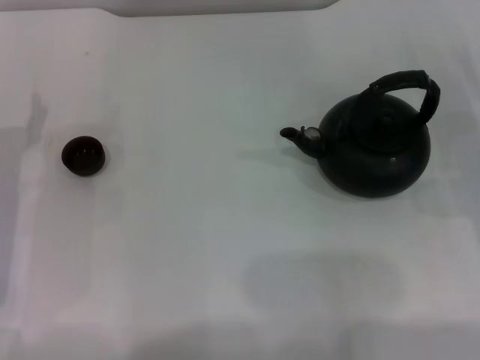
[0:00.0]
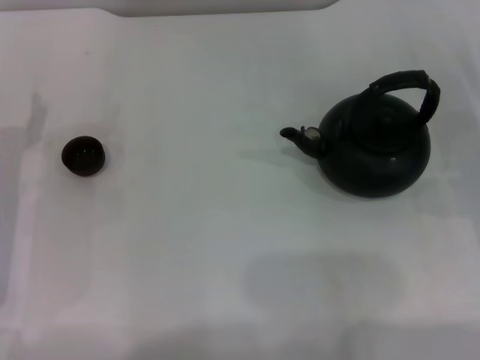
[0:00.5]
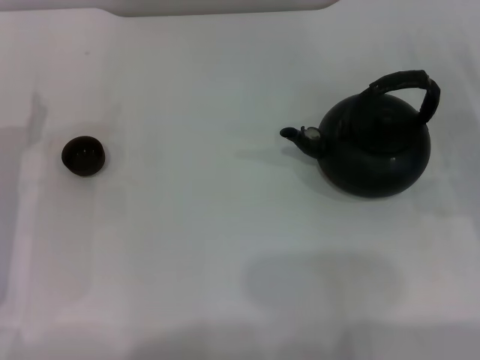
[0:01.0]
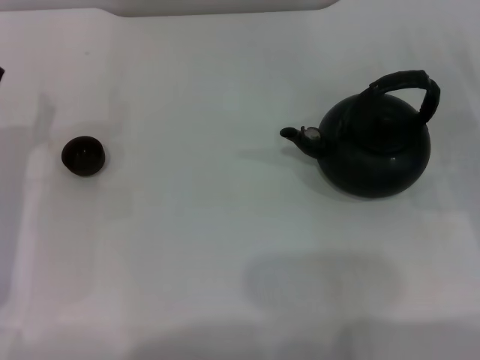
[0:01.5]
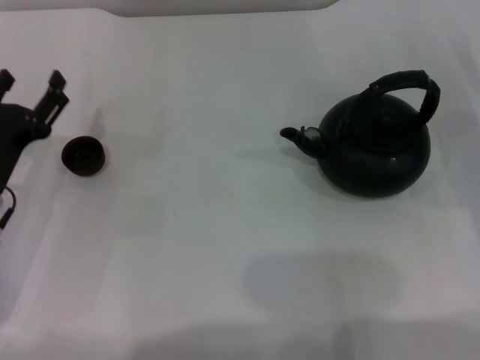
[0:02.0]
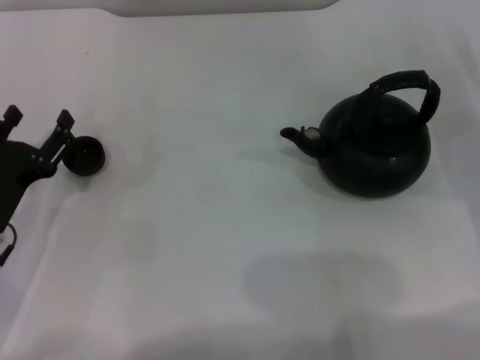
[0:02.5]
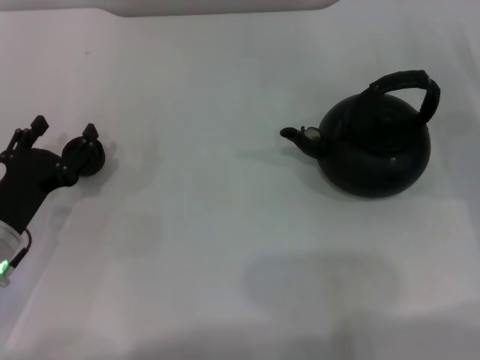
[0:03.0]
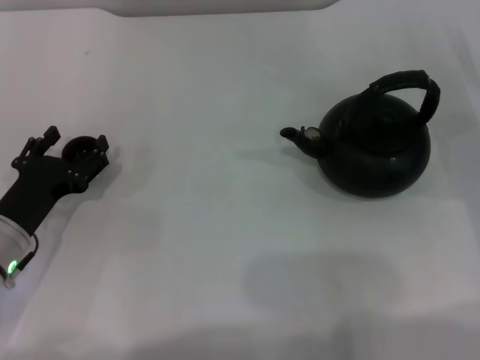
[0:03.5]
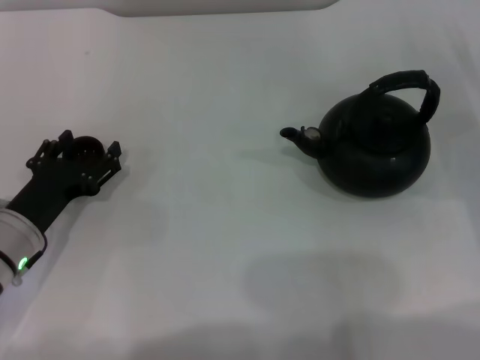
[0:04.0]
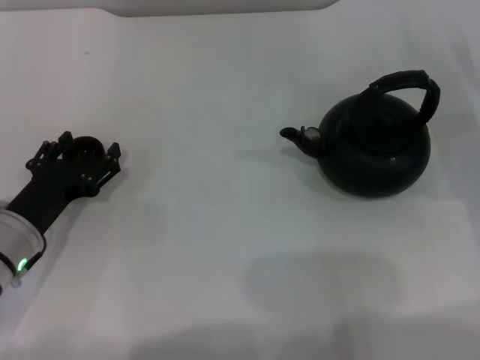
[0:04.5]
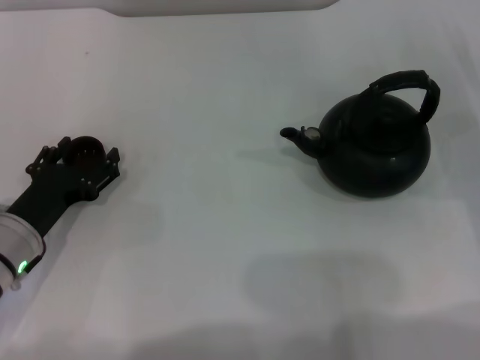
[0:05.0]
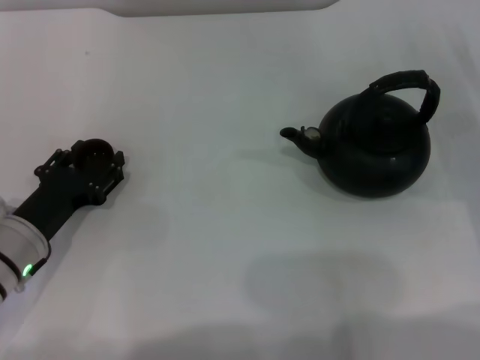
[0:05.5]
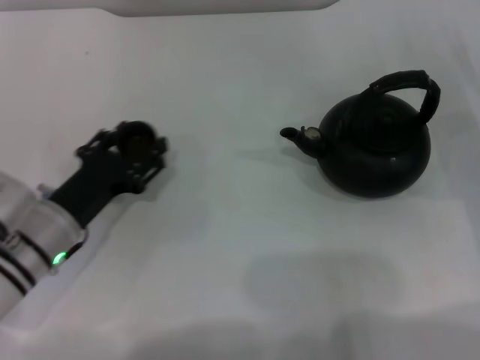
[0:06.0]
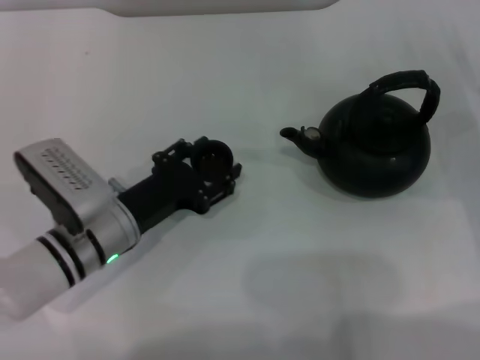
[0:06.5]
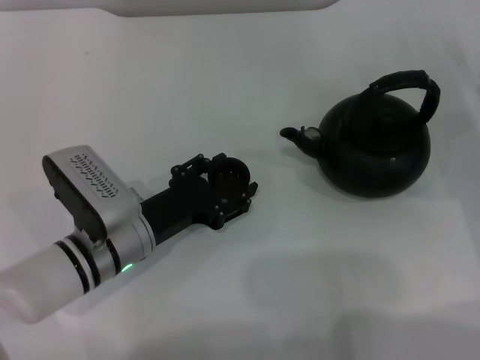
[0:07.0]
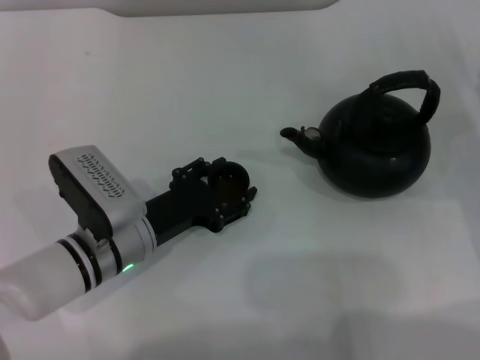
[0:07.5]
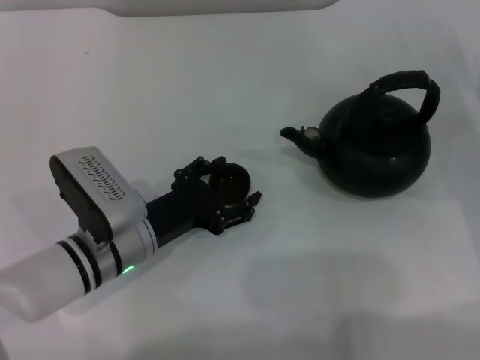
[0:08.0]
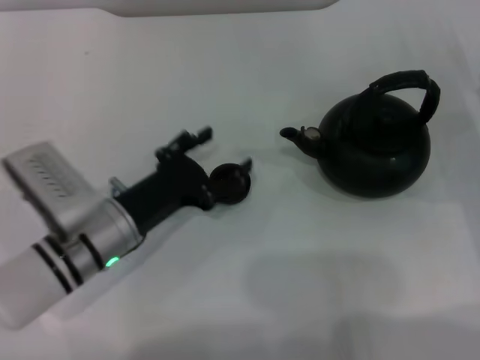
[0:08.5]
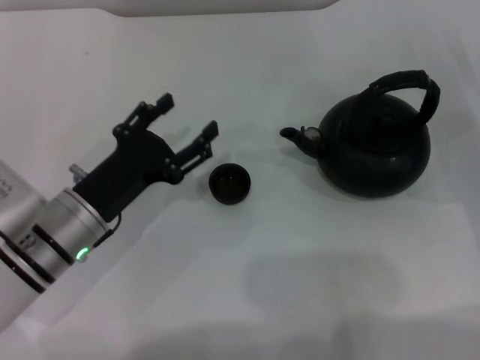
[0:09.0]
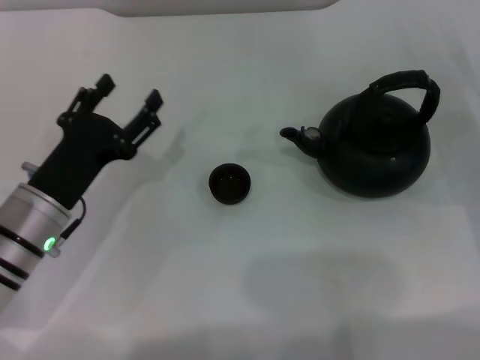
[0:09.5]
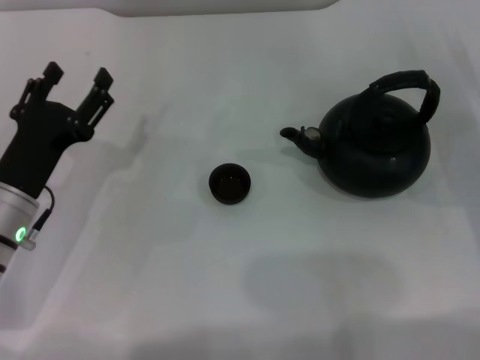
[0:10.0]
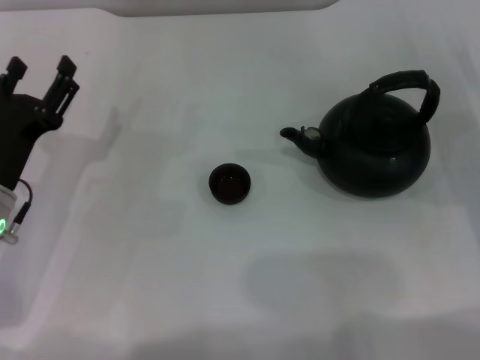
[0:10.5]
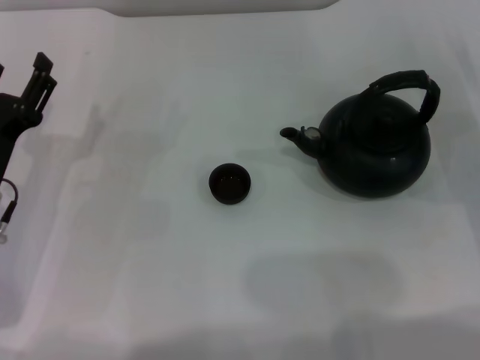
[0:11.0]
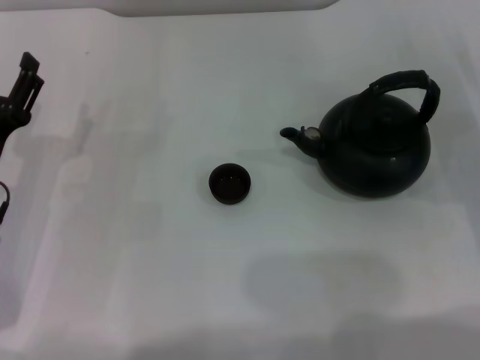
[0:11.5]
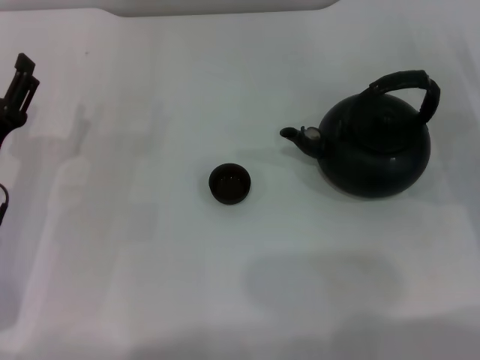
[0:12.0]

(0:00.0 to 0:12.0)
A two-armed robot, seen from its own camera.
Task of the whole recording: Grasp the handle of the teapot with one hand and pour tea into the teacup.
Step, 0:00.0 - 0:05.5: Pick up the teacup with the left gripper.
Step, 0:06.0 - 0:09.5: Place the teacup in the center of view with the left gripper.
0:02.0 - 0:04.0: There are only small adjustments of the grippers.
0:04.0 - 0:06.0: The left gripper closes.
0:06.0 - 0:08.0: The left gripper heads to the right, covering approximately 5 cm.
0:08.0 - 0:10.0: The left gripper moves to the left, roughly 10 cm, and opens its fingers.
0:10.0 - 0:12.0: The grippers move only a little.

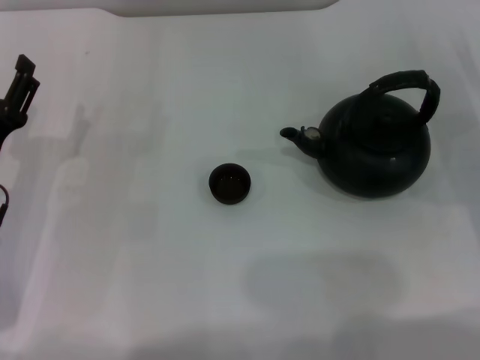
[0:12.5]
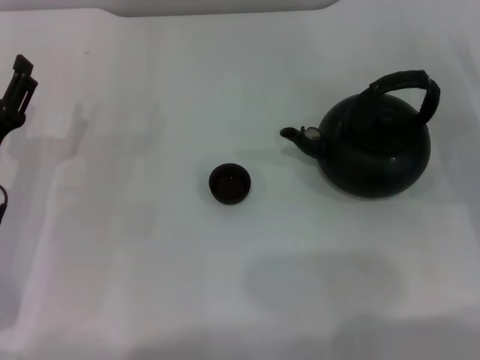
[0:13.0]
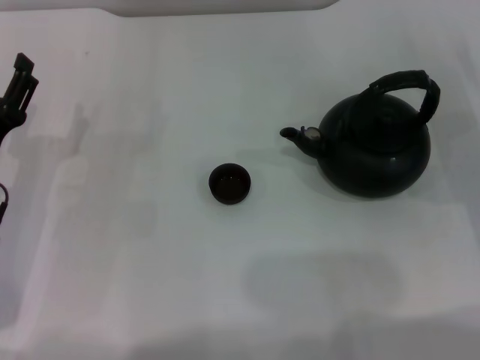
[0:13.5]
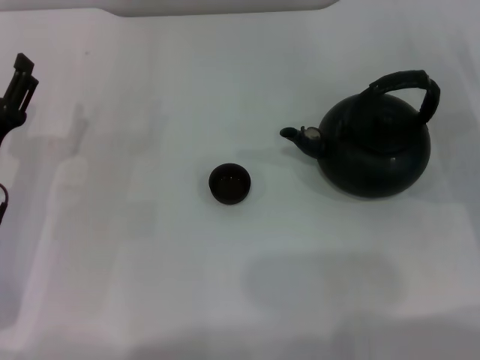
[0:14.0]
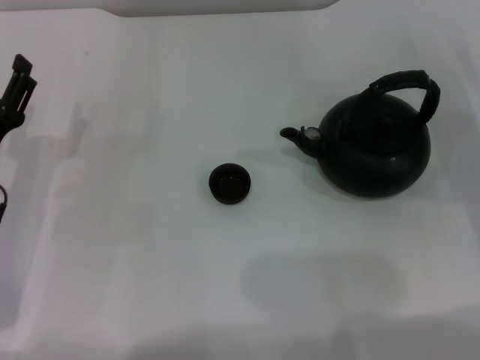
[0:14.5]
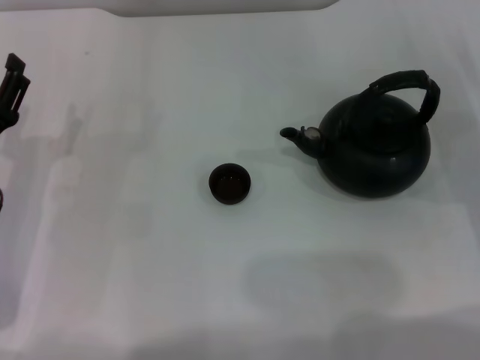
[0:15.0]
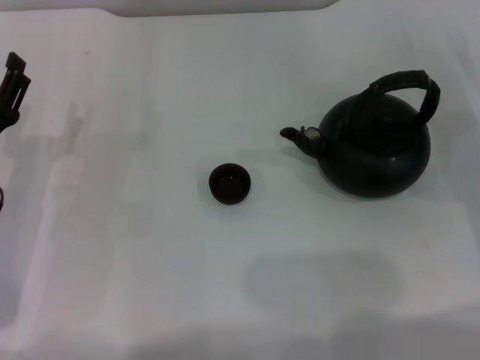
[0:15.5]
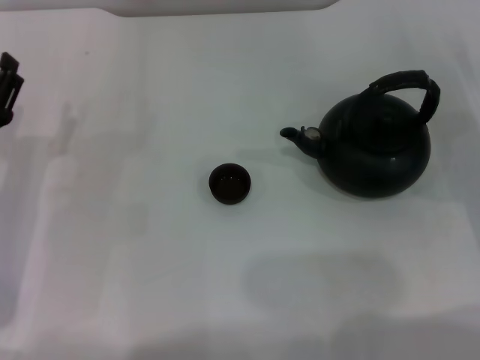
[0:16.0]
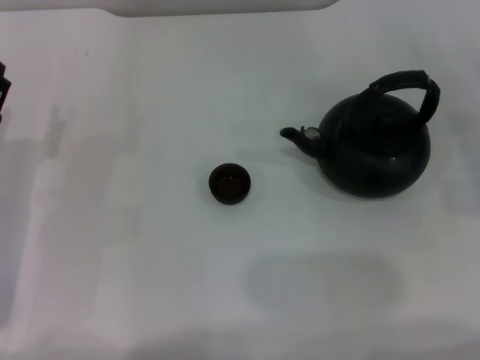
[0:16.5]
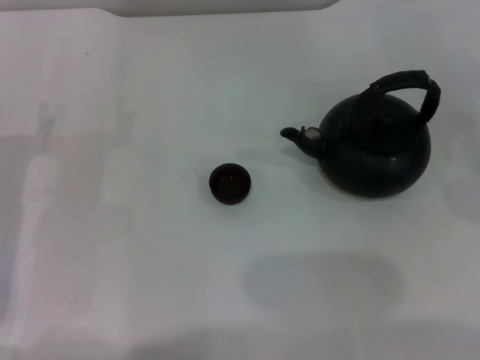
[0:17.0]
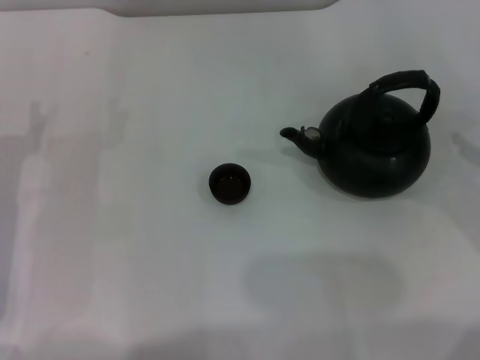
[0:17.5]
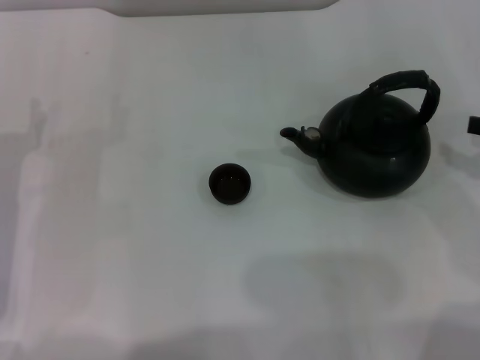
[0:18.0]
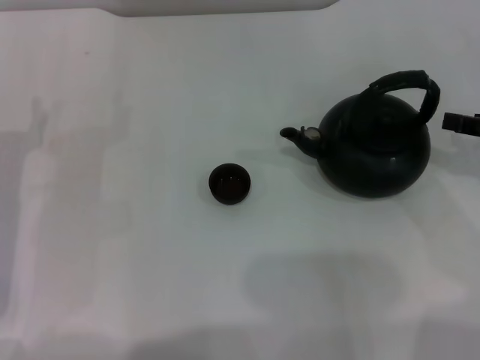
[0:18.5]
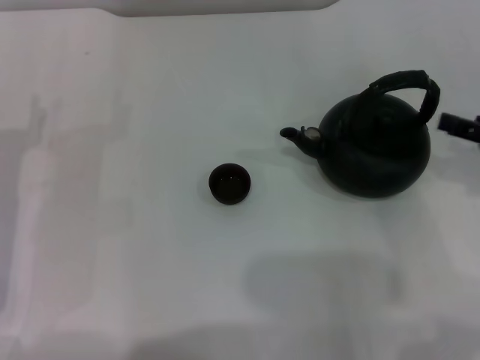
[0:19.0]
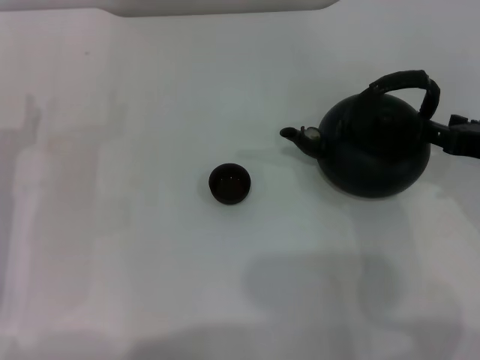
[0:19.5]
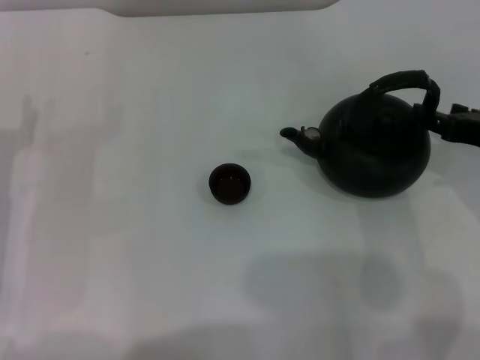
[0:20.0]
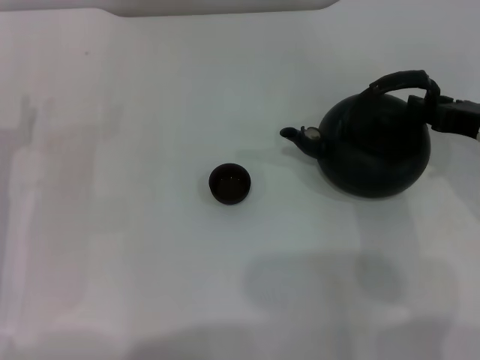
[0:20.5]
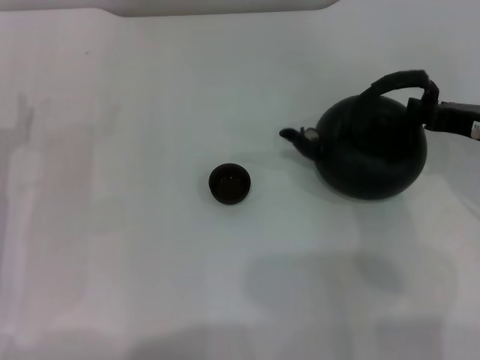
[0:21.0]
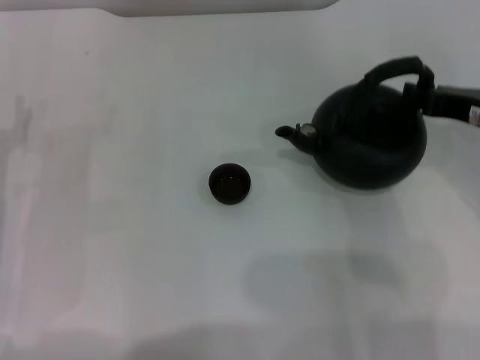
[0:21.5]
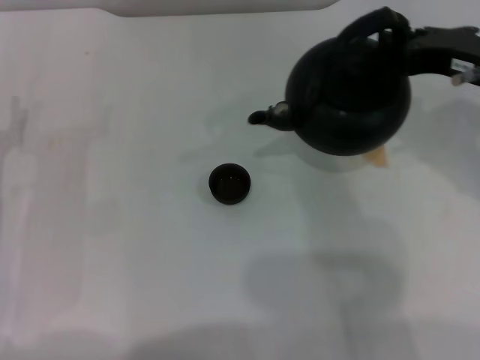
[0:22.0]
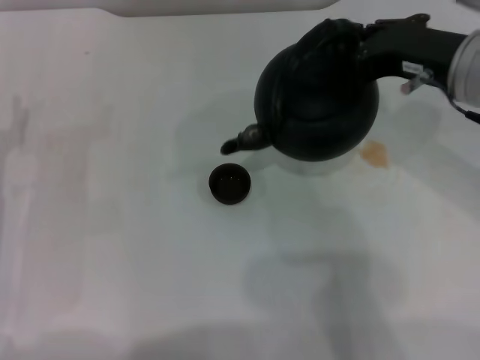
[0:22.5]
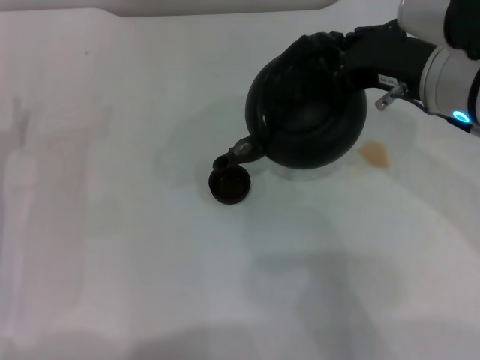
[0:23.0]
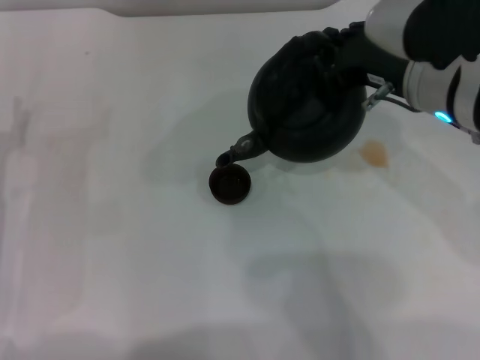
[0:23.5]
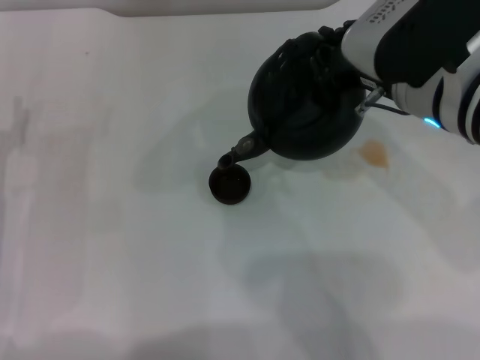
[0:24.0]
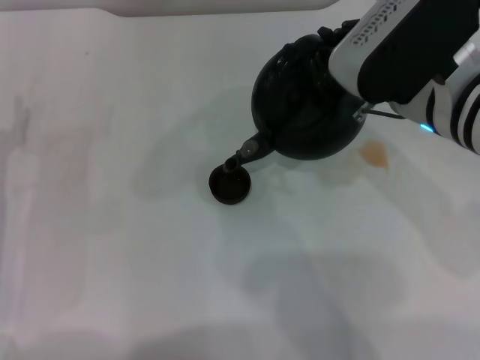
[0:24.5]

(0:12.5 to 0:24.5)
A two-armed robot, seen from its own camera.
Task of the whole recording: Grasp the handle of the teapot with one hand and pour tea into the teacup.
Step, 0:12.5 - 0:21.5: Pick up the teapot with the right gripper.
0:12.5 - 0:14.5: Both grippers stay put.
0:14.5 - 0:16.5: The grippers move only a little.
0:18.5 - 0:20.5: The right gripper shifts roughly 5 cm to the left.
0:20.5 - 0:22.5: The right gripper goes roughly 10 cm to the left and upward, and closes.

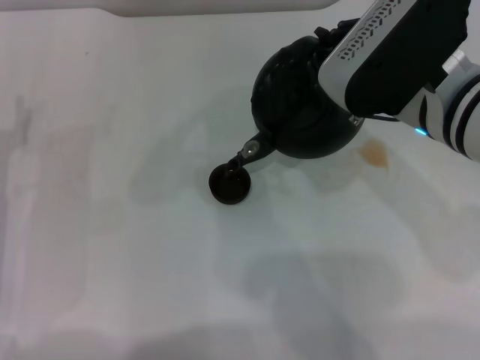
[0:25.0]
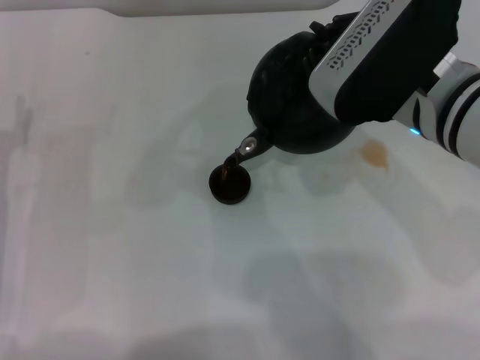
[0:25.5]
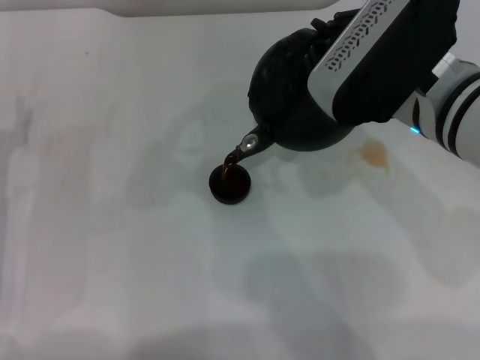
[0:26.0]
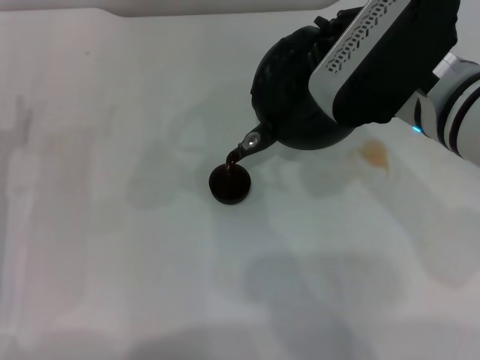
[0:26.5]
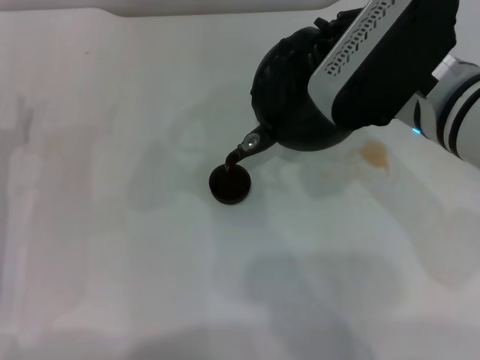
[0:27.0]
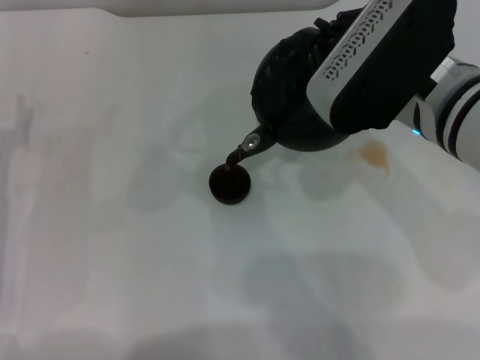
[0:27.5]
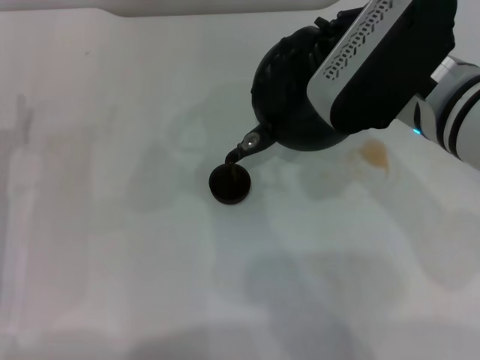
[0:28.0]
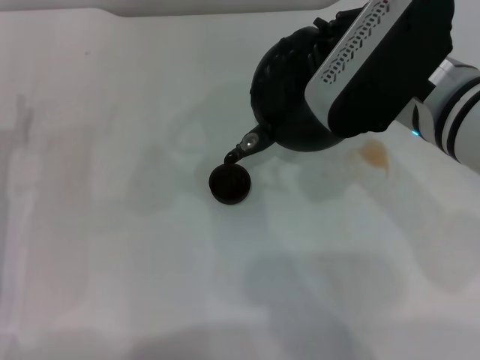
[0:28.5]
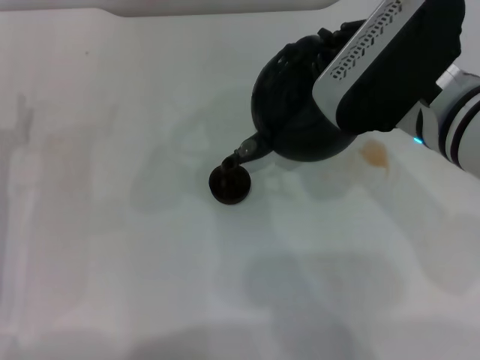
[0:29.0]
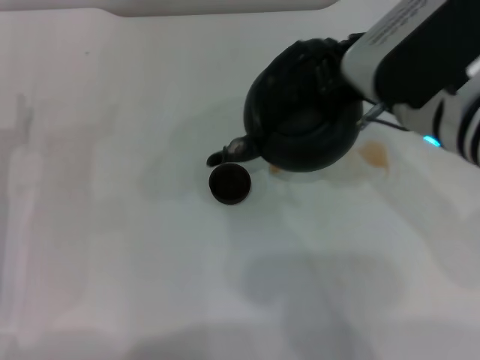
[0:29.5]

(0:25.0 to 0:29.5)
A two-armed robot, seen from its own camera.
Task of the whole recording: Grasp the handle of the teapot with one hand and pour tea into the teacup.
0:25.0 - 0:29.5: The grippers make only small movements.
